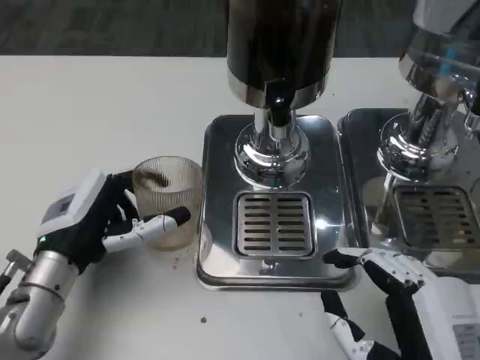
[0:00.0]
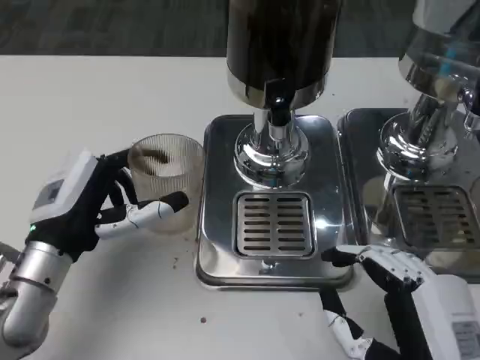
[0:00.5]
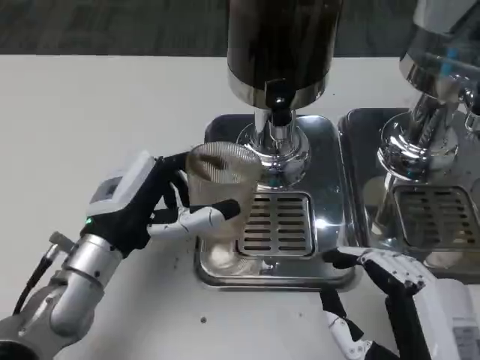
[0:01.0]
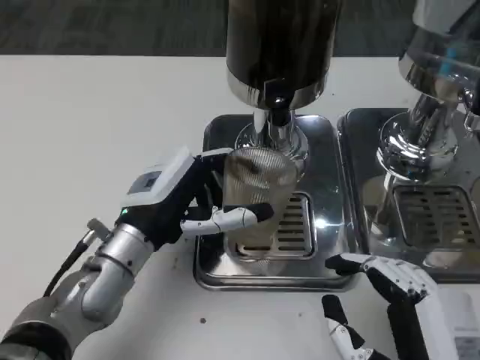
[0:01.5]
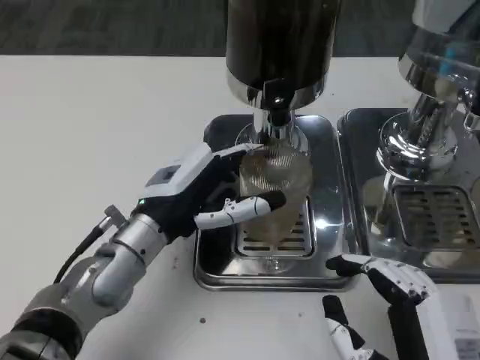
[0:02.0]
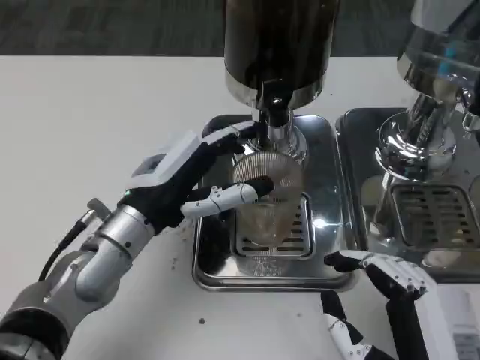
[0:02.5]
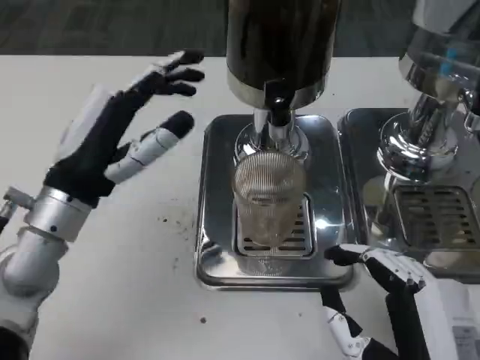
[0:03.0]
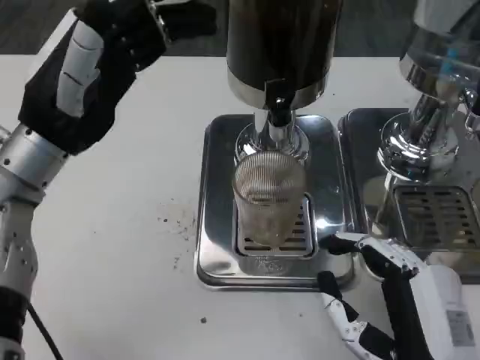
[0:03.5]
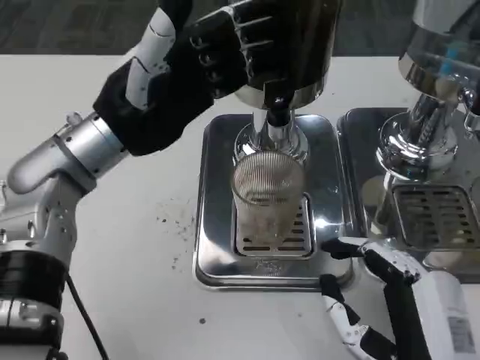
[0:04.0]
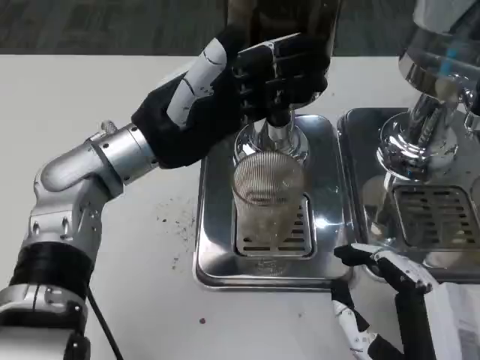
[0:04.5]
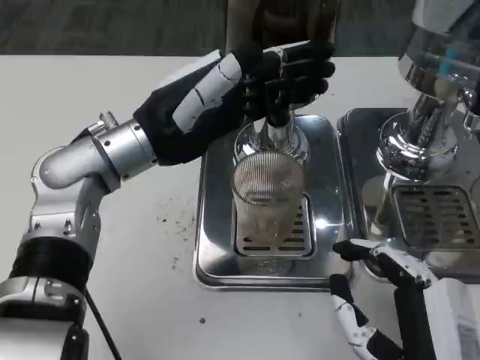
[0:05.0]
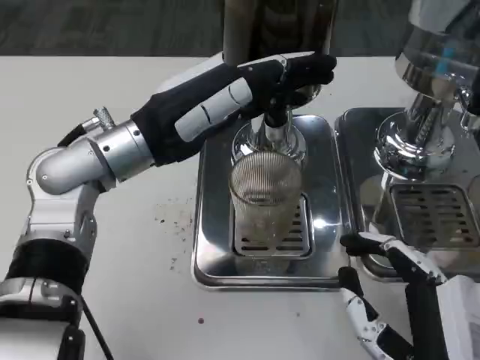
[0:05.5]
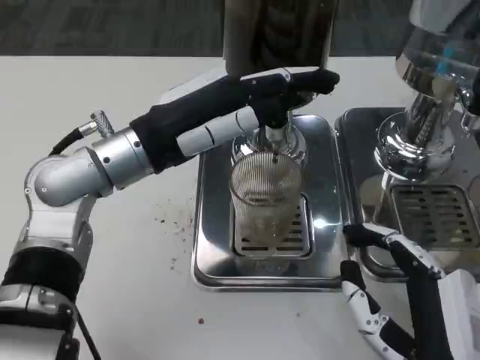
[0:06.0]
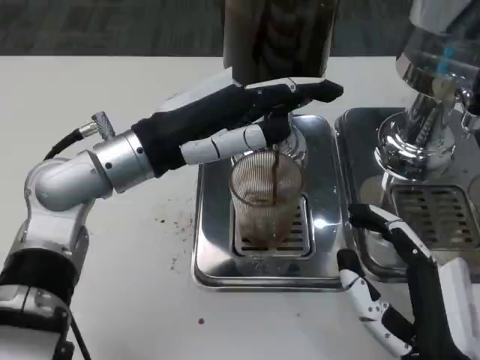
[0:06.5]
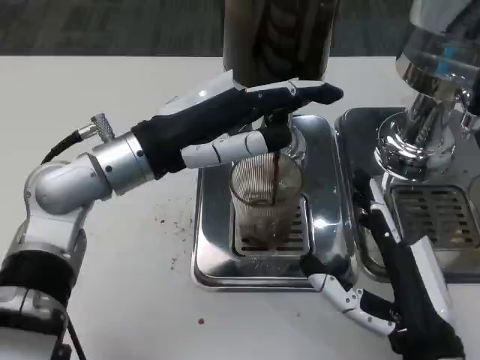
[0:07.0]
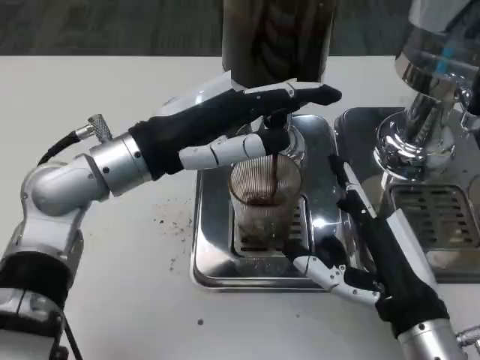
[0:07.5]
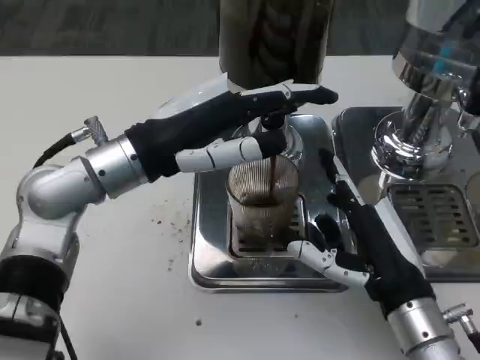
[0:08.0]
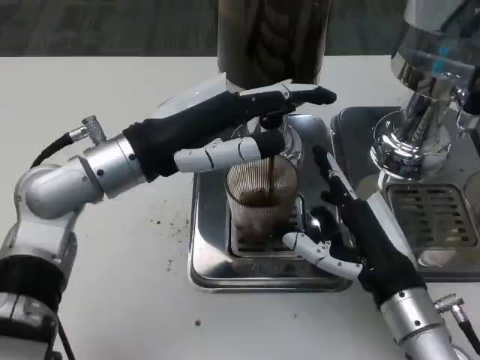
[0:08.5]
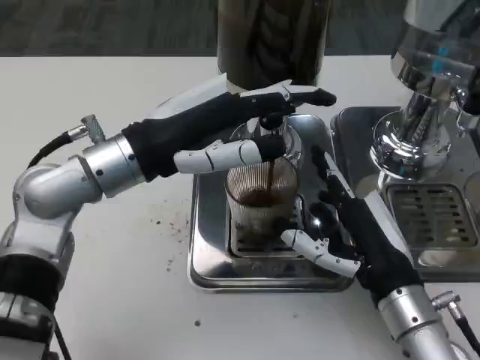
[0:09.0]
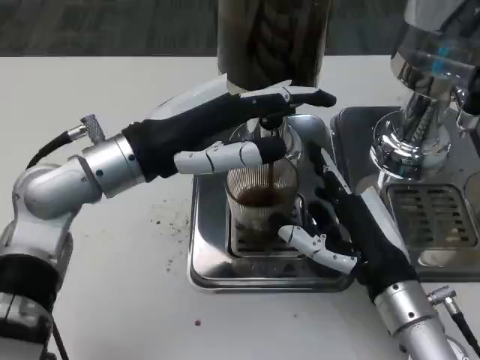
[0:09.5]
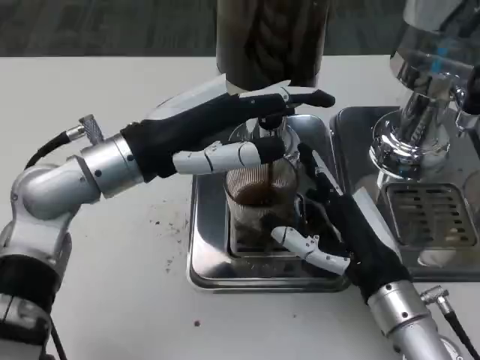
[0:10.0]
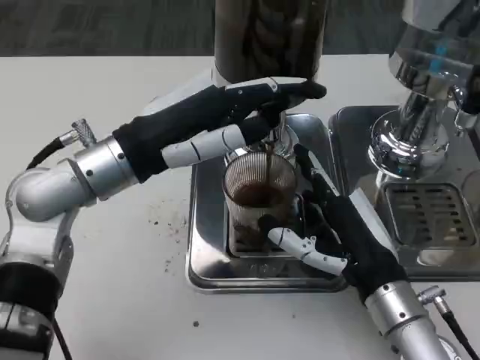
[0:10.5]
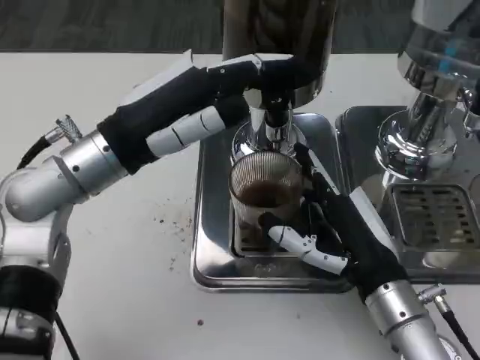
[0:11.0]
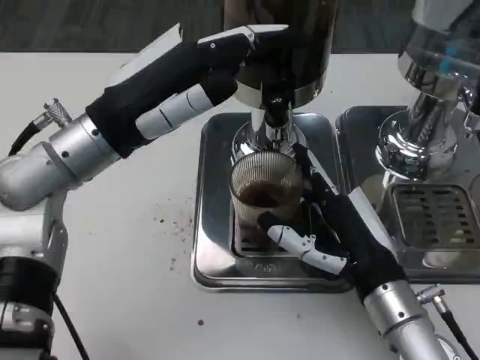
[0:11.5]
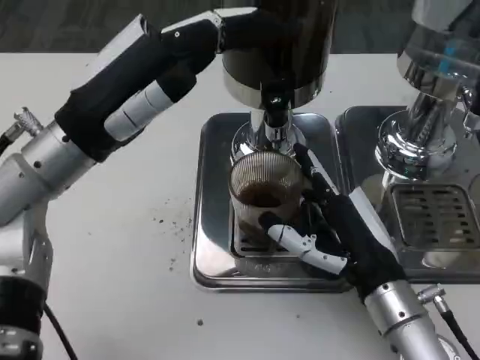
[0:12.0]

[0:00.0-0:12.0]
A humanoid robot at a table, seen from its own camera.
Task of the whole recording: Grasp the cup under the faucet to collect the drink, then remove the cup.
0:00.0 to 0:02.0: The left hand is displaced to the right by approximately 5 cm.
0:02.0 to 0:04.0: The left hand goes roughly 10 cm upward.
0:06.0 to 0:08.0: The right hand goes approximately 10 cm forward.

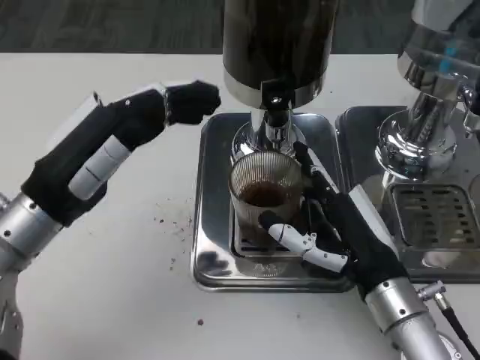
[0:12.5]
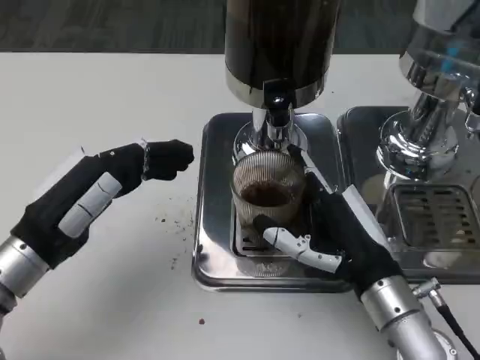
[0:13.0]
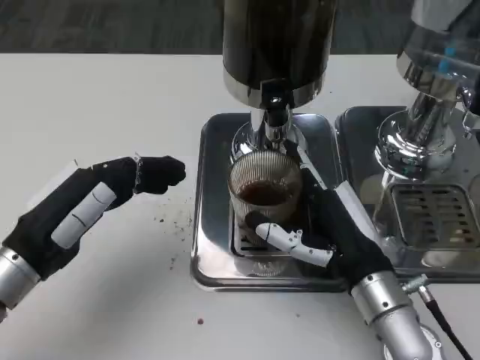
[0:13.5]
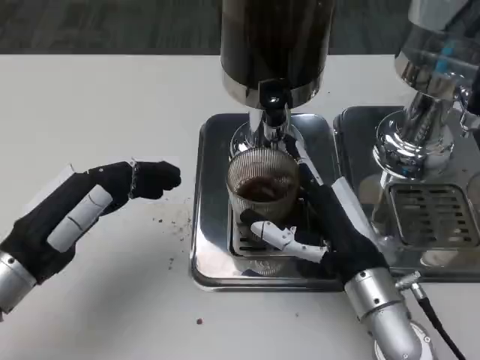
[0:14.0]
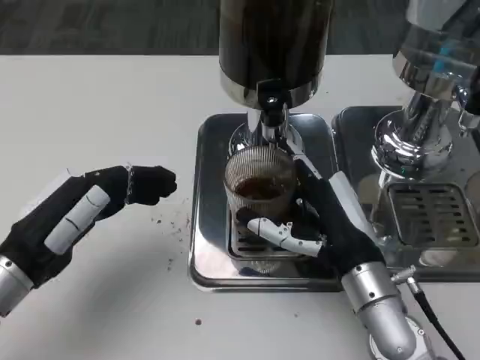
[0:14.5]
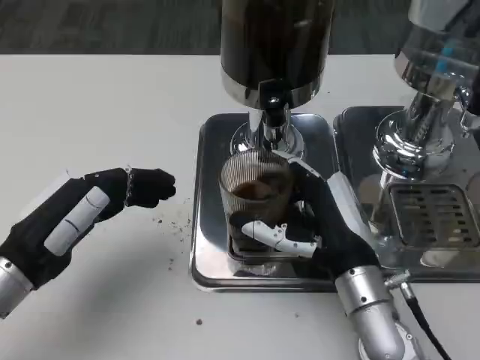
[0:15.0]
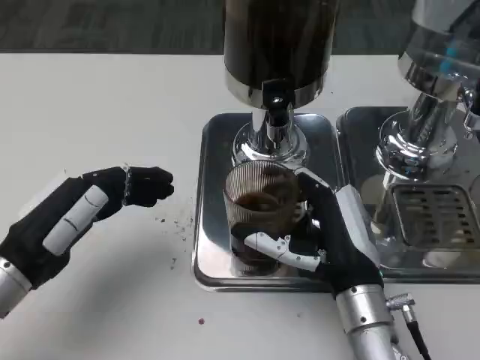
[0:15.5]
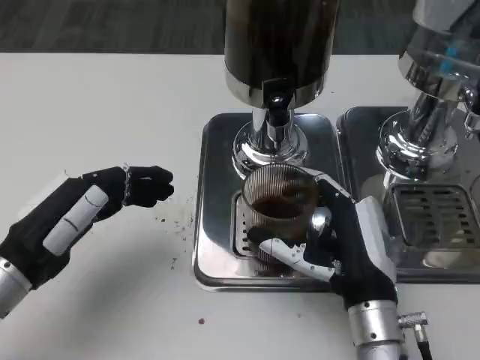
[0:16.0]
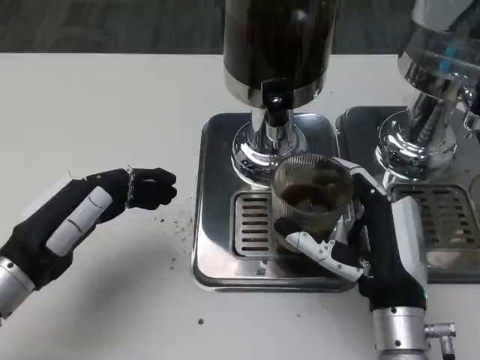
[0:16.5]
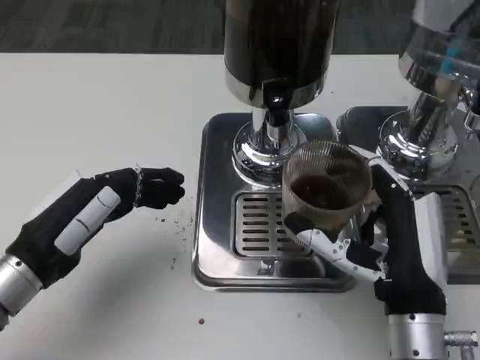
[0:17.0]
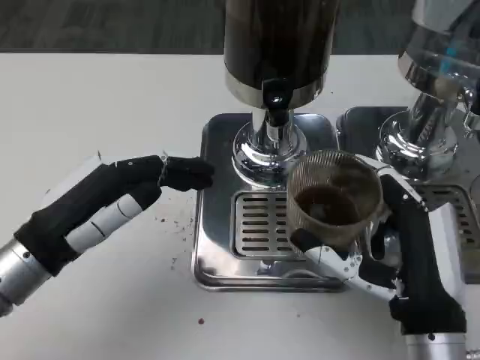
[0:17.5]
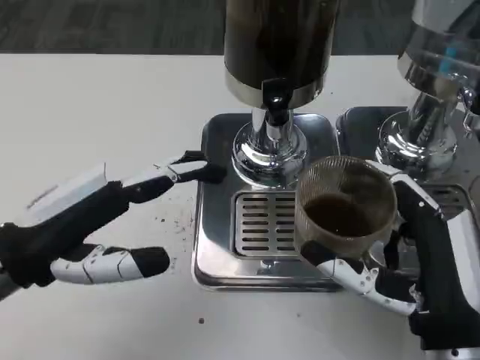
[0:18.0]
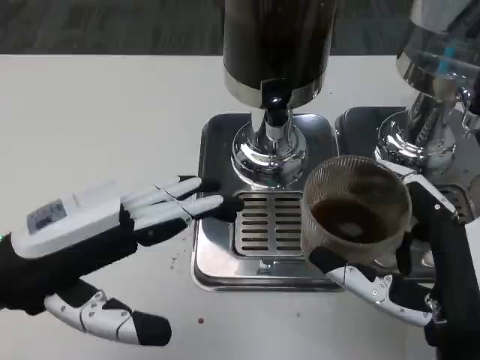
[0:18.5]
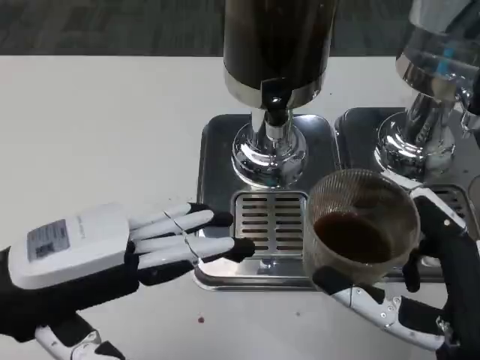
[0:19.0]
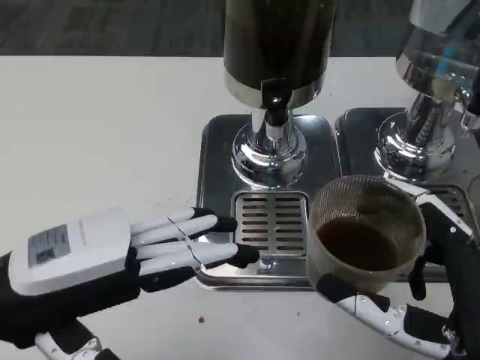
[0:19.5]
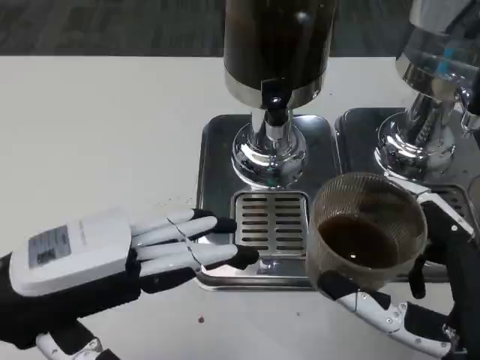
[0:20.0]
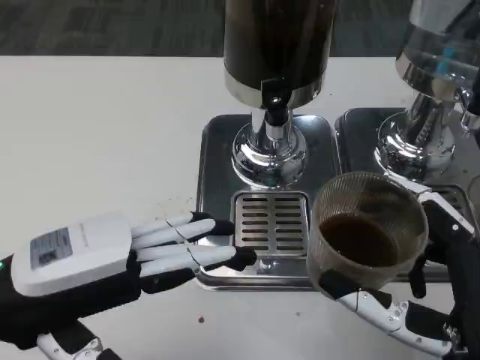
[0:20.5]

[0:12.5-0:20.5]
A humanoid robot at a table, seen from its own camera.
Task of the whole recording: Grasp the cup under the faucet to collect the drink, then remove the cup.
0:12.5 to 0:14.5: The left hand ends up approximately 5 cm from where it was.
0:16.5 to 0:18.5: The left hand is displaced upward by about 10 cm; the right hand goes approximately 10 cm backward and upward.
